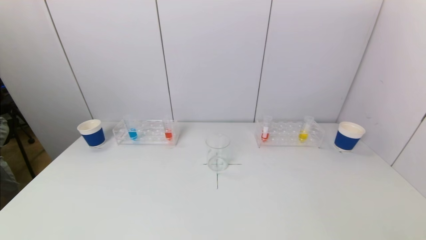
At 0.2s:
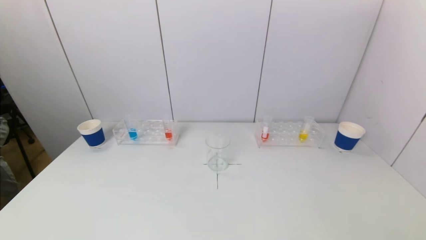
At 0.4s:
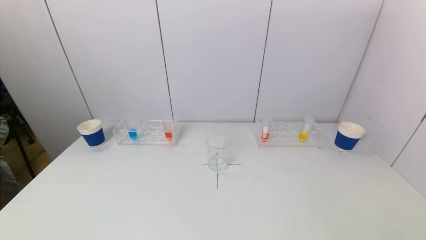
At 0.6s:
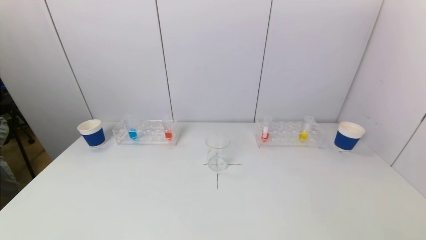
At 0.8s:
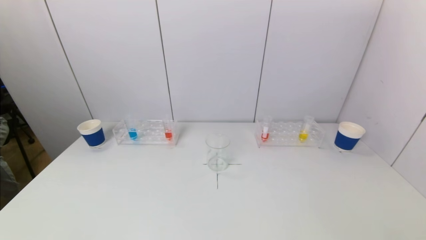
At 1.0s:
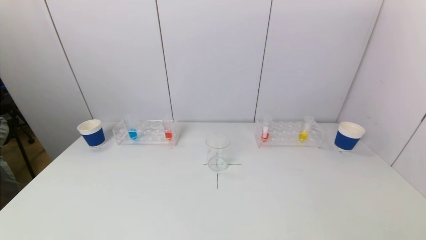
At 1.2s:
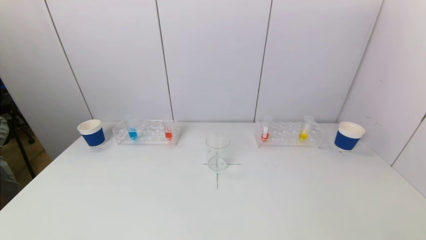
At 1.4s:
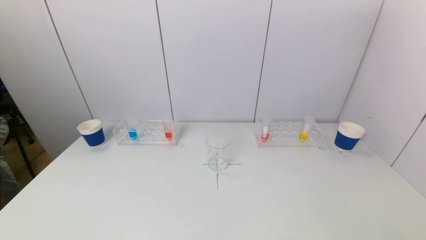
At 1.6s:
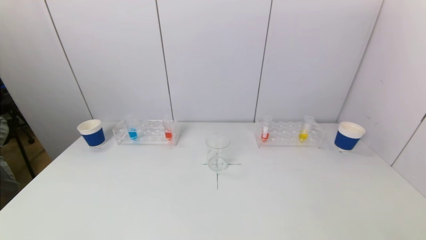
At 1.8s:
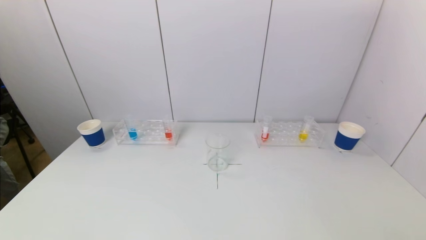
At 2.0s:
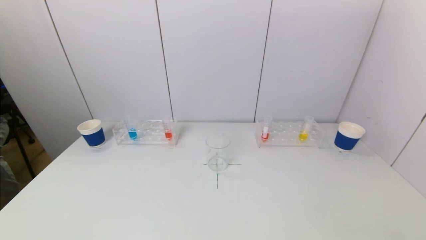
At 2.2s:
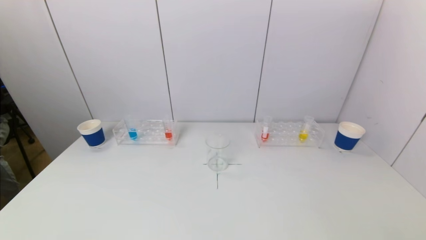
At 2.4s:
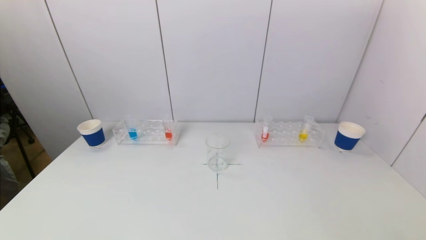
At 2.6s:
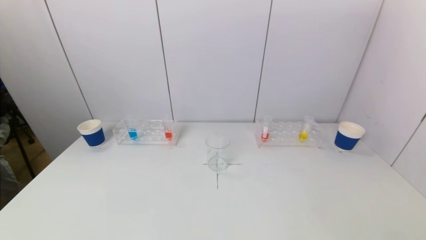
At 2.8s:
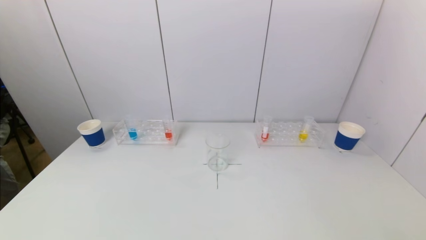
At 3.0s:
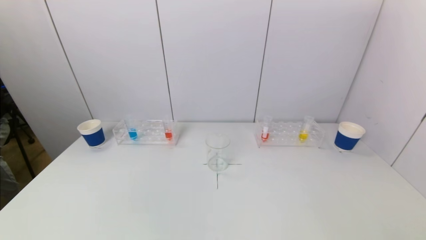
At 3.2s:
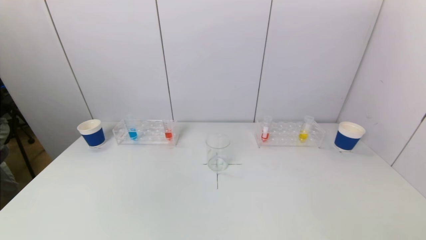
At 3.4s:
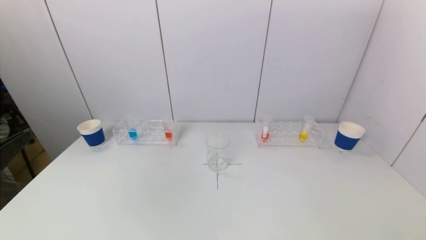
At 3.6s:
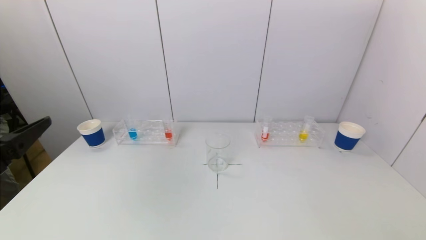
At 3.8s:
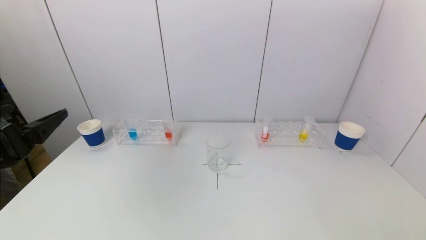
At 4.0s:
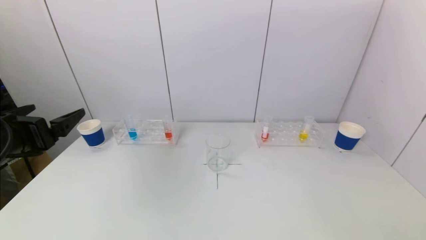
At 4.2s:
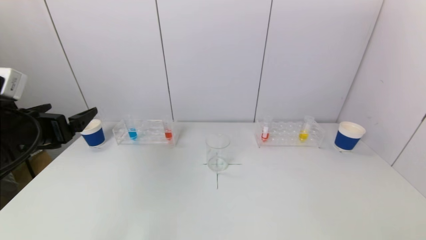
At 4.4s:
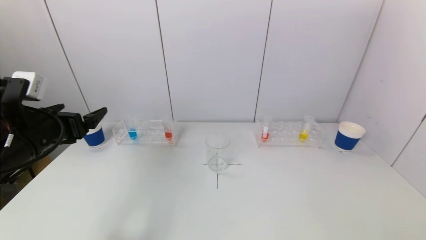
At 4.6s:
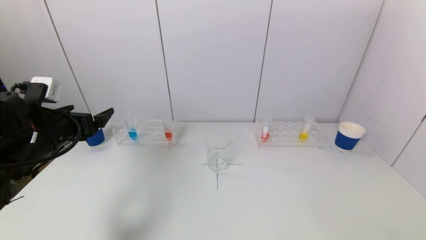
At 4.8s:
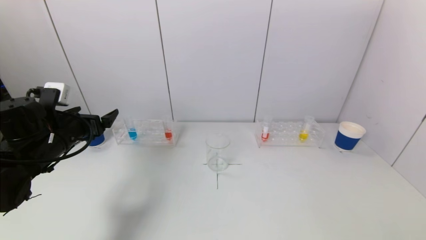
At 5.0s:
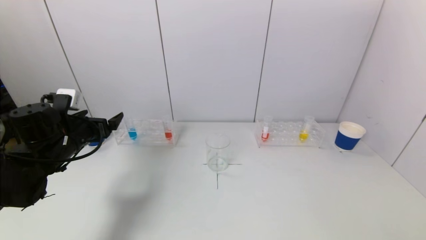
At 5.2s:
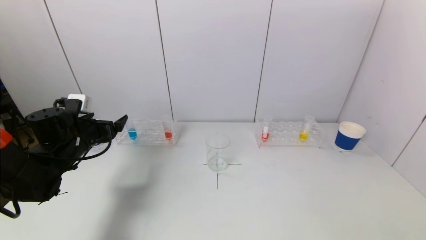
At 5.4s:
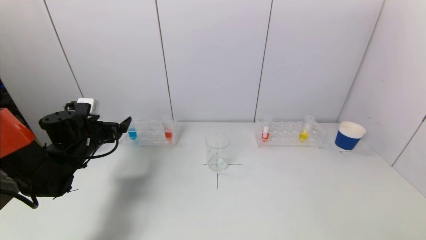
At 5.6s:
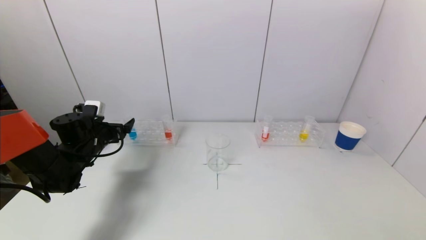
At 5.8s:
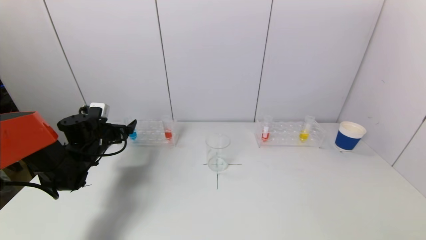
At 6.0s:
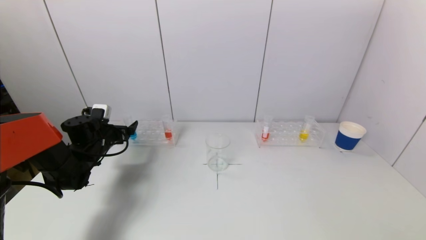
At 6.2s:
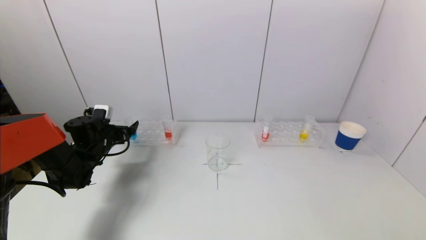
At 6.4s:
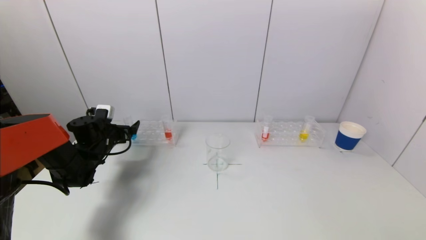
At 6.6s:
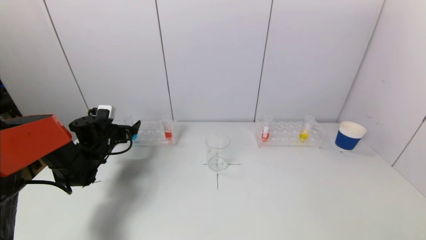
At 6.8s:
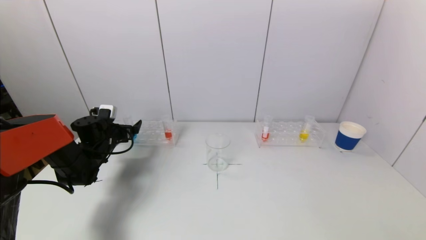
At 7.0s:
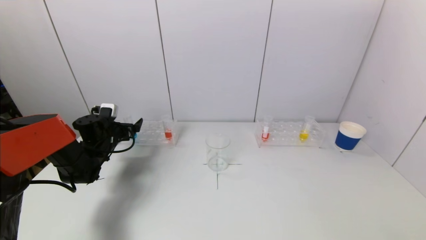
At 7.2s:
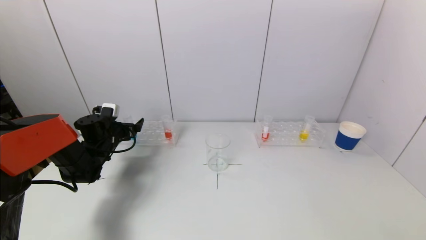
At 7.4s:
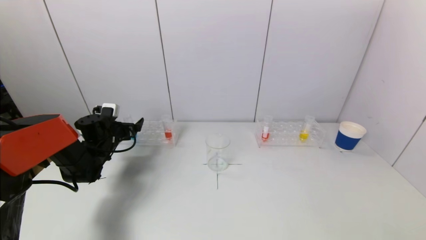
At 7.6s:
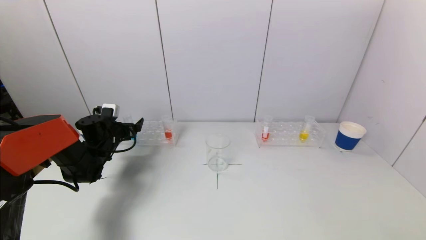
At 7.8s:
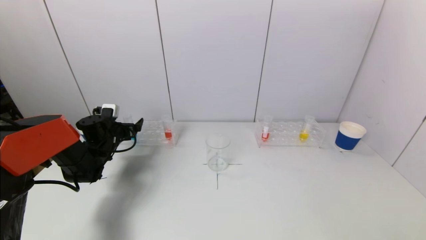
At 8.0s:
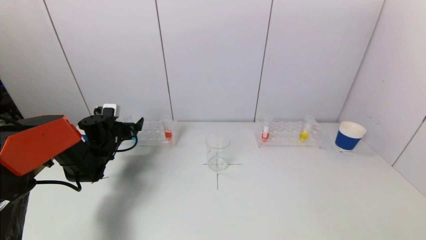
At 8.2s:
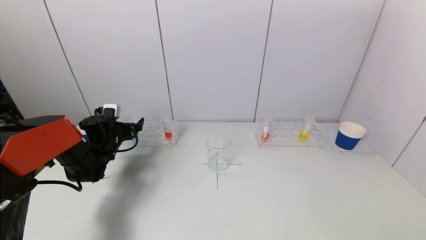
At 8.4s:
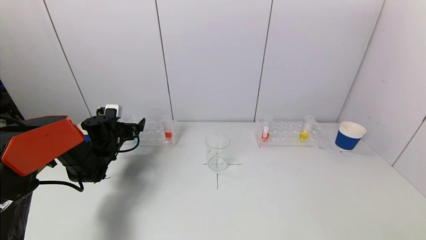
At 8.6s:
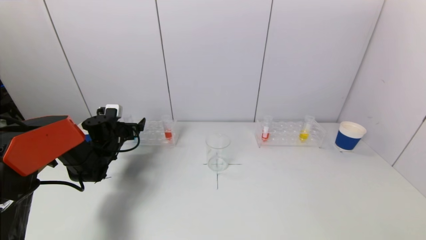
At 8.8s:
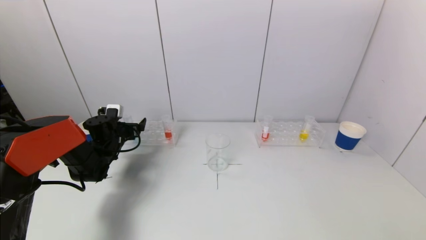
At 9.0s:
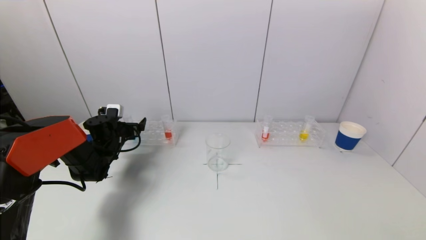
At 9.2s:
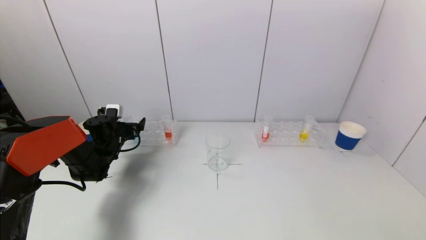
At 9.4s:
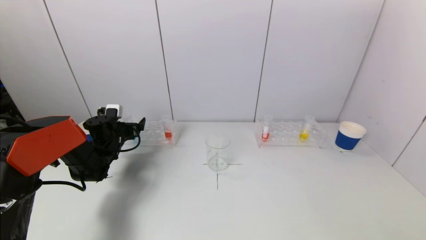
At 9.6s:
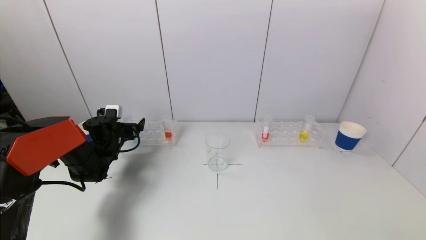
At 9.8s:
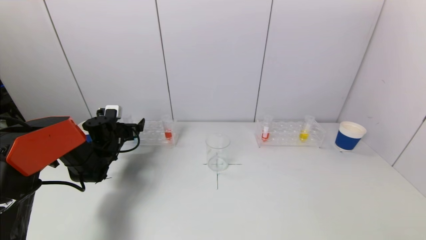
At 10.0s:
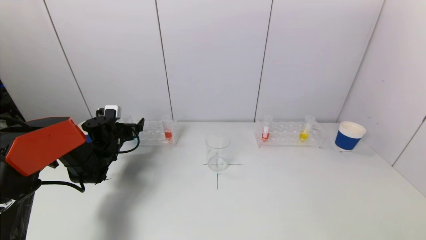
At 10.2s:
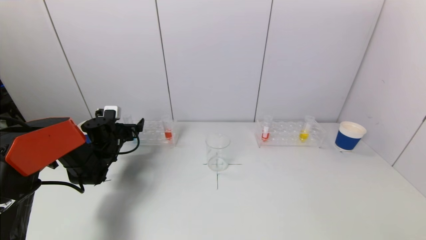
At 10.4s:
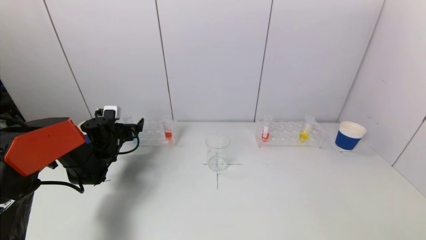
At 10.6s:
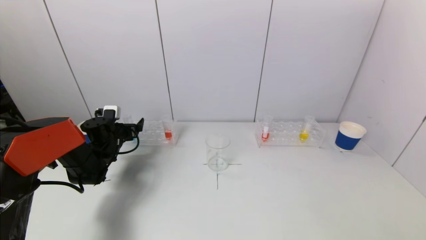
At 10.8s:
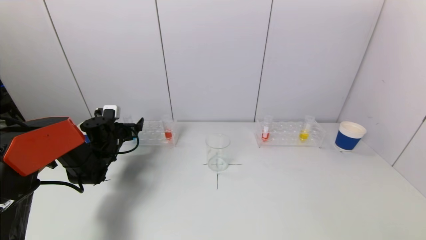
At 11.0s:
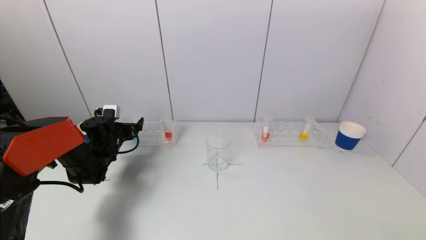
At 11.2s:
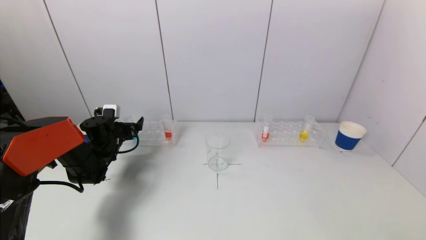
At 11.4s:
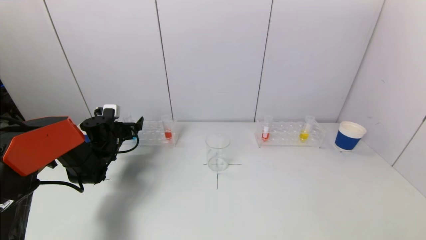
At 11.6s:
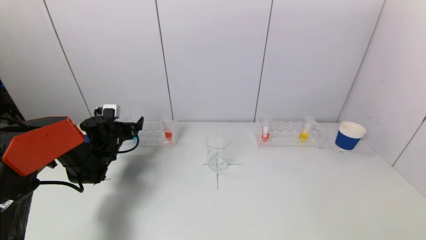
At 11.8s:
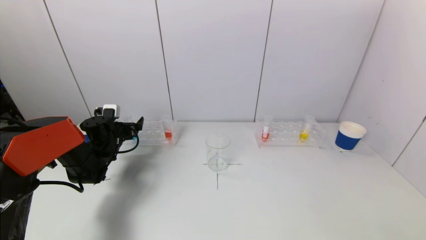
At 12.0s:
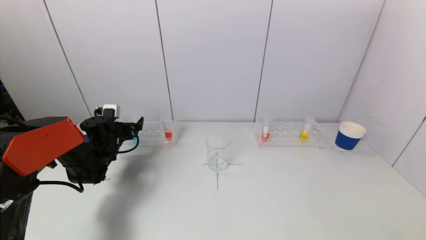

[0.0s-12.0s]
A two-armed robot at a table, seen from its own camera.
Task of the whole recording: pick up a test tube with pigment on left test tube rack and a test tube with pigment on right test tube rack by grippers and pour them into the beaker.
0.0s to 1.6s: The two grippers keep their place.
3.0s to 4.4s: The left gripper moves forward, roughly 25 cm.
4.4s to 6.0s: The left gripper is displaced forward and downward by some 20 cm.
6.0s to 9.0s: There are only small adjustments of the grippers.
9.0s to 12.0s: Neither gripper changes place.

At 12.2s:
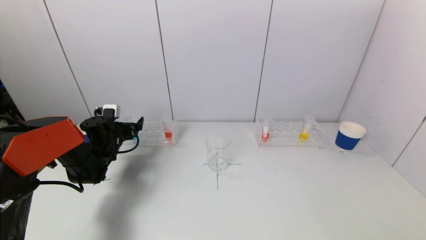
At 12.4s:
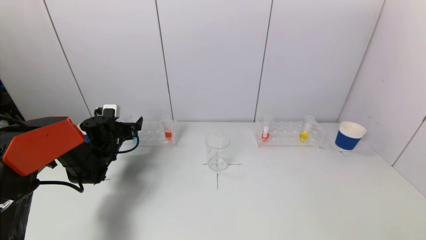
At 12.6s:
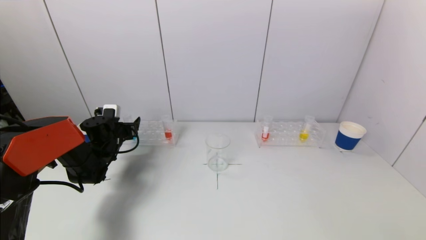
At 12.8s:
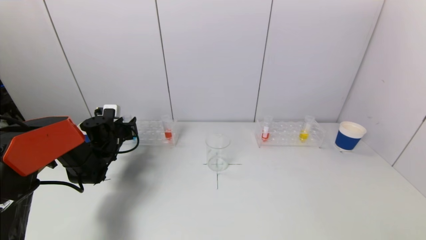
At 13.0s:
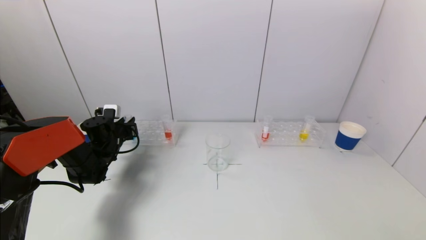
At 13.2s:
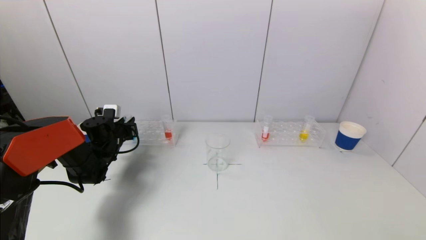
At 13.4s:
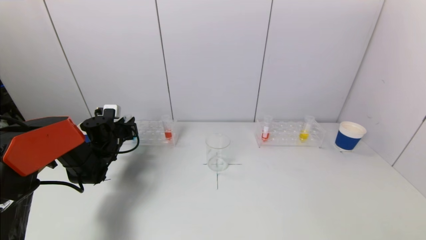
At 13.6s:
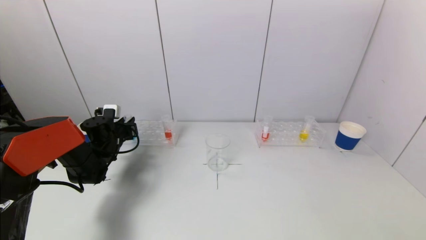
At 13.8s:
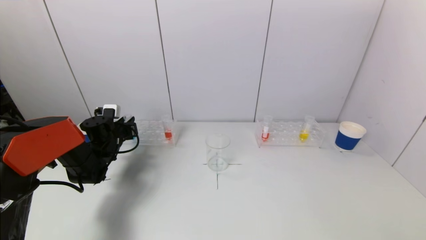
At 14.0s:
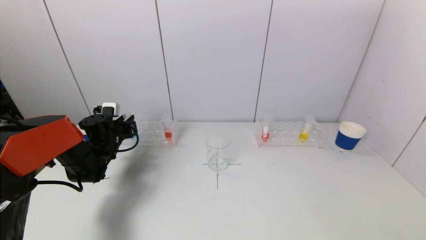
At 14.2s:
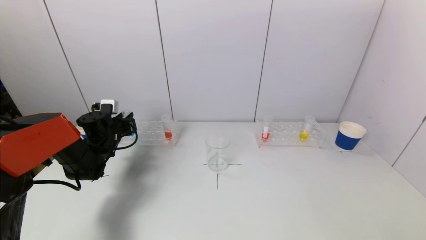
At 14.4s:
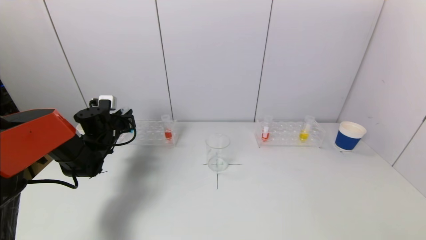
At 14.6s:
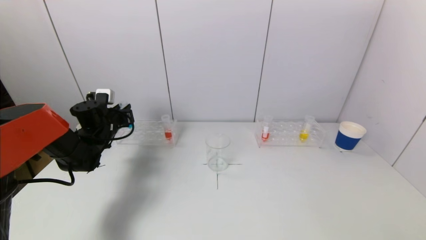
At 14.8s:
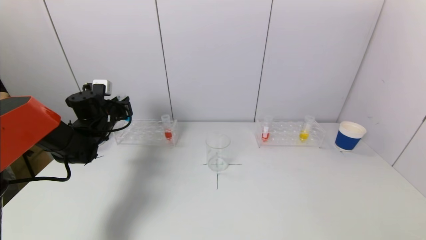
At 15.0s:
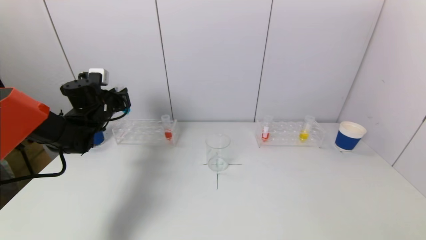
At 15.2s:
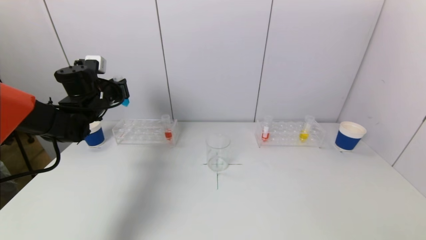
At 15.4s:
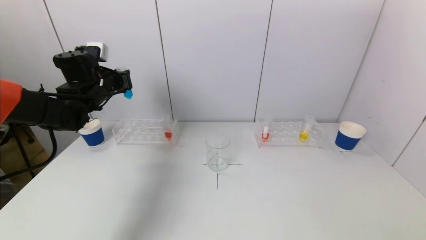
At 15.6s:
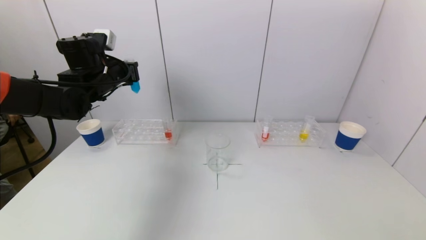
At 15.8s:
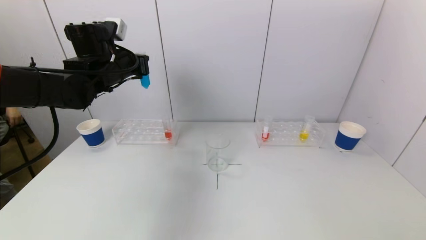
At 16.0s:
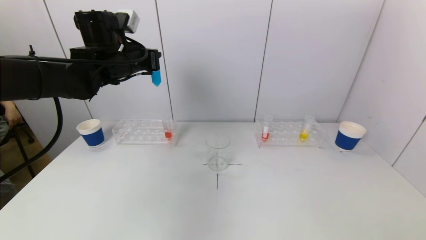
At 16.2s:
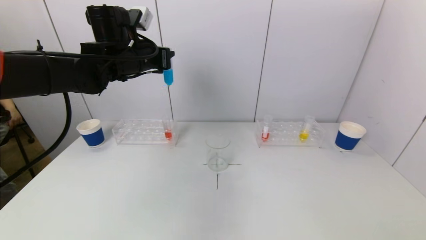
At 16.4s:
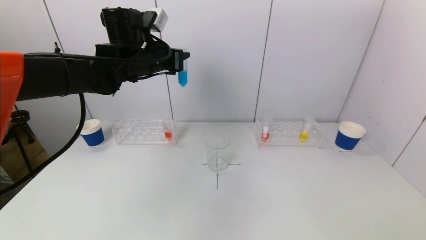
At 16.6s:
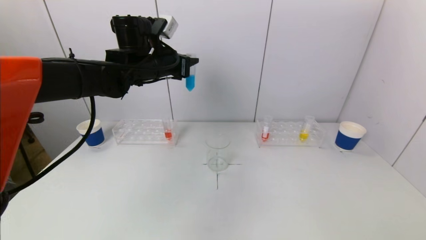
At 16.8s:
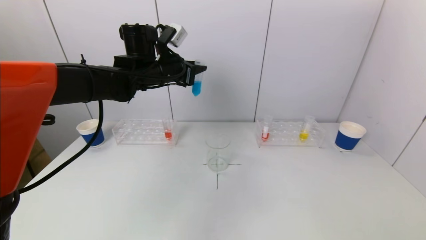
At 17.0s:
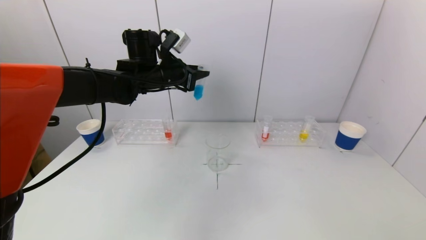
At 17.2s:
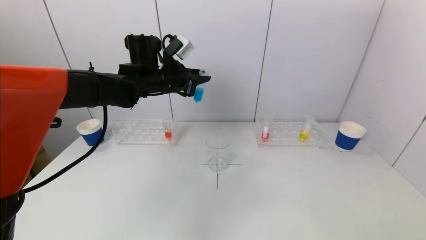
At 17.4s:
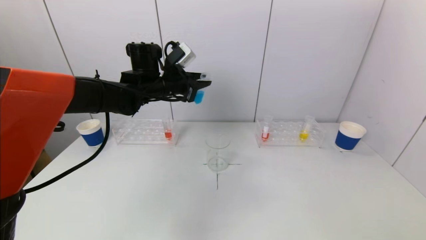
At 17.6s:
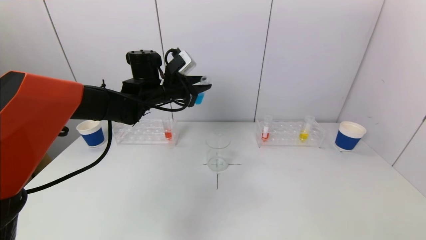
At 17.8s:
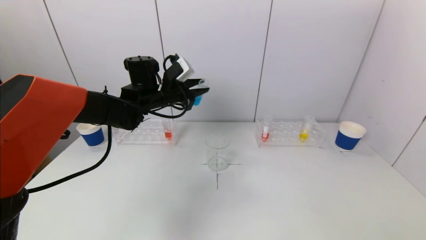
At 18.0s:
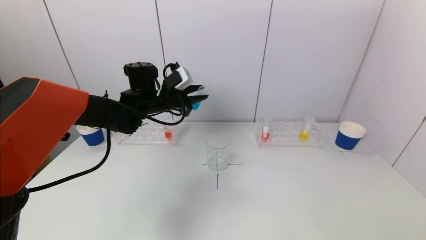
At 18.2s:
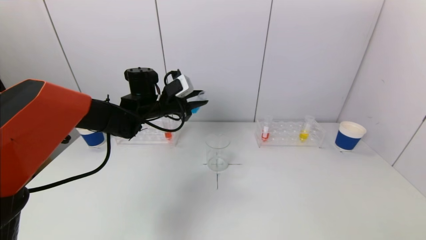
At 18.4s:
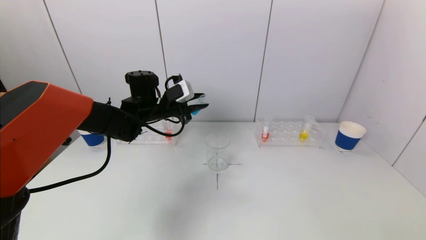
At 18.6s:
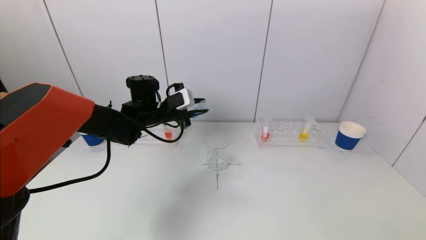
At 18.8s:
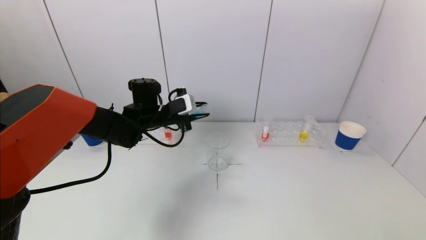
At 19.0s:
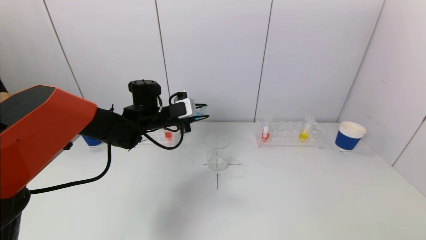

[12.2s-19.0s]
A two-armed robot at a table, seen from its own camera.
Task of the whole recording: pick up a test tube with pigment on left test tube rack and a test tube with pigment on right test tube rack by grippers and pour them into the beaker.
13.6s to 15.0s: The left gripper shifts about 10 cm upward.
15.0s to 16.2s: The left gripper goes about 20 cm upward and to the right.
16.2s to 17.6s: The left gripper travels downward by approximately 10 cm.
17.6s to 19.0s: The left gripper travels downward by approximately 5 cm.
